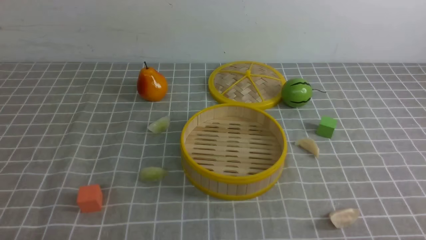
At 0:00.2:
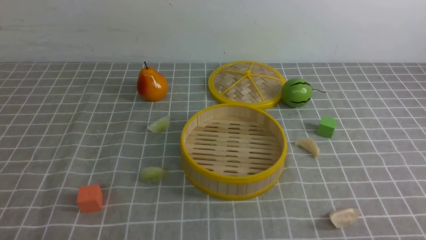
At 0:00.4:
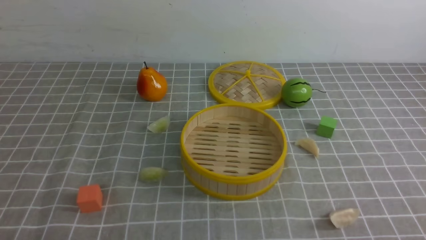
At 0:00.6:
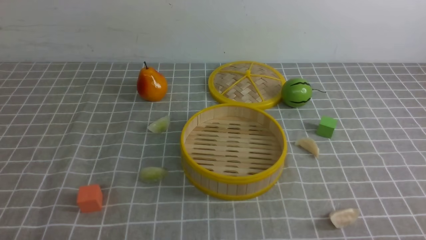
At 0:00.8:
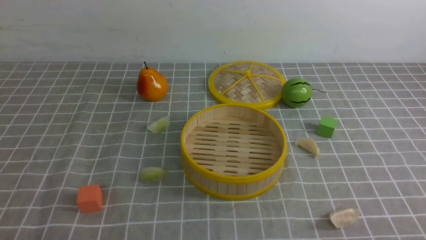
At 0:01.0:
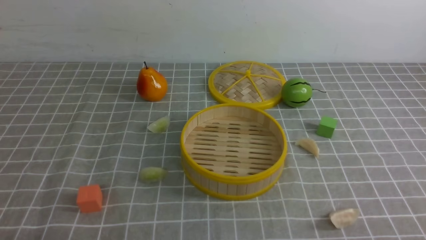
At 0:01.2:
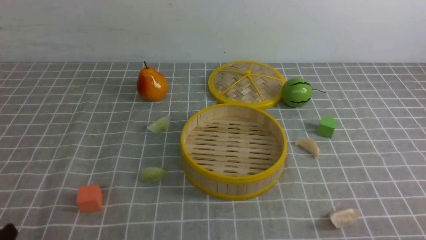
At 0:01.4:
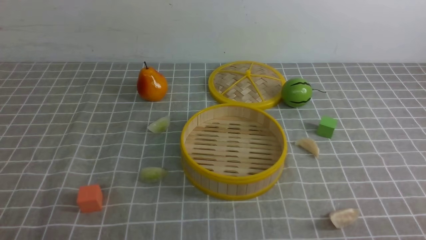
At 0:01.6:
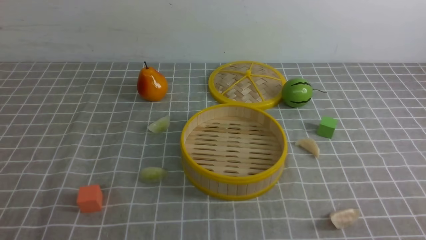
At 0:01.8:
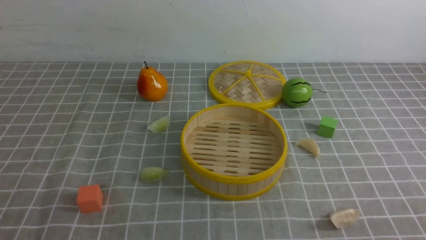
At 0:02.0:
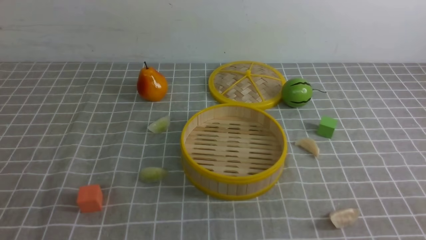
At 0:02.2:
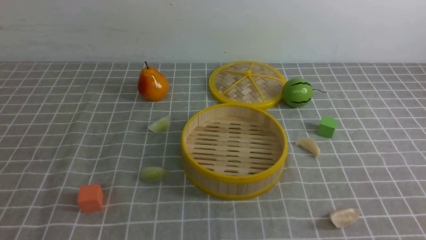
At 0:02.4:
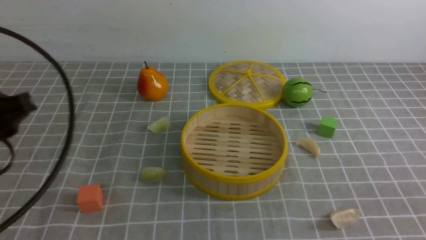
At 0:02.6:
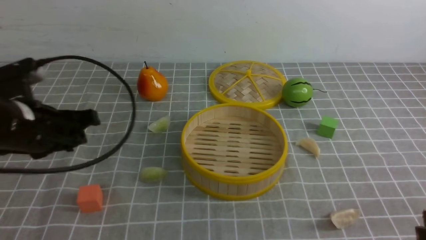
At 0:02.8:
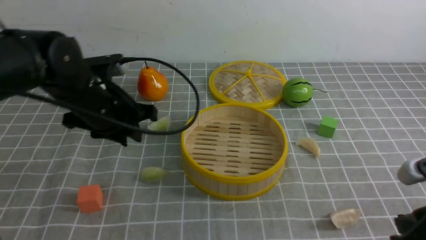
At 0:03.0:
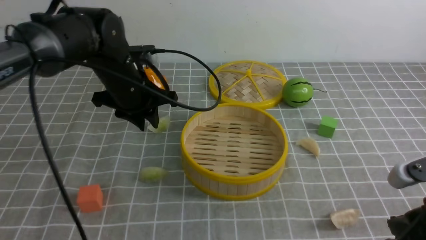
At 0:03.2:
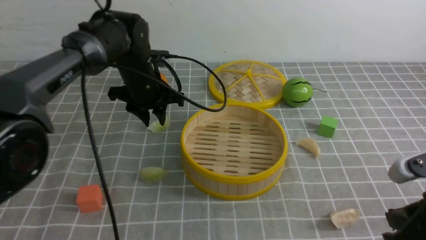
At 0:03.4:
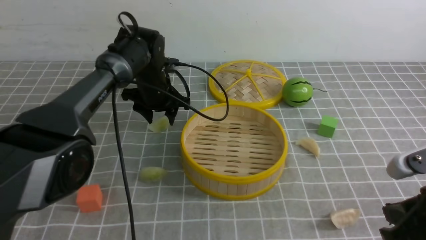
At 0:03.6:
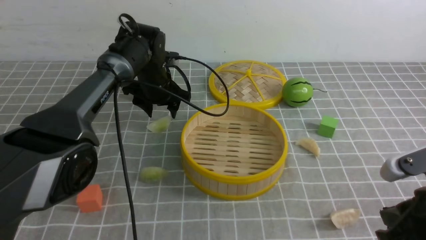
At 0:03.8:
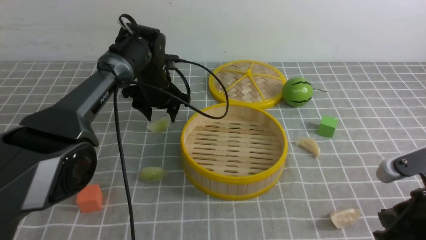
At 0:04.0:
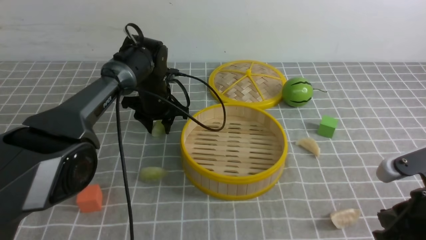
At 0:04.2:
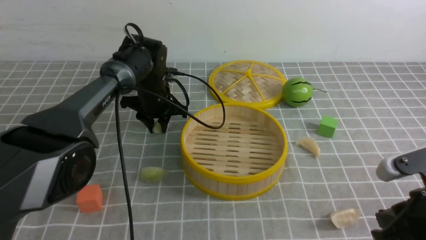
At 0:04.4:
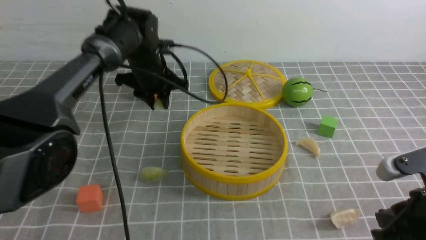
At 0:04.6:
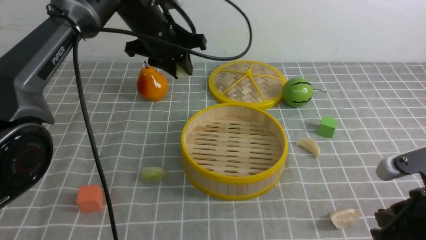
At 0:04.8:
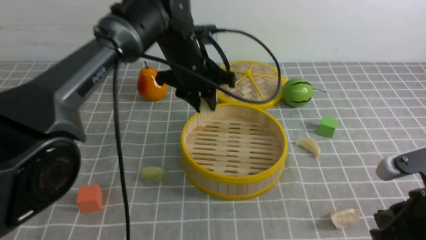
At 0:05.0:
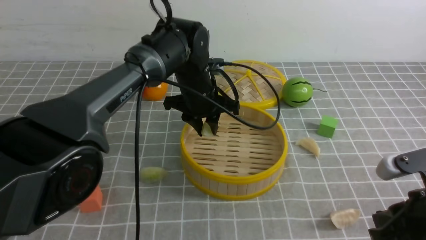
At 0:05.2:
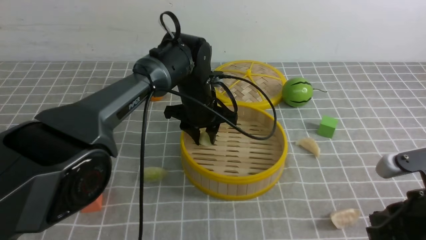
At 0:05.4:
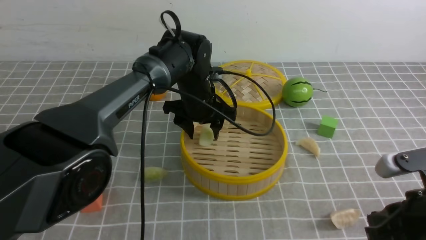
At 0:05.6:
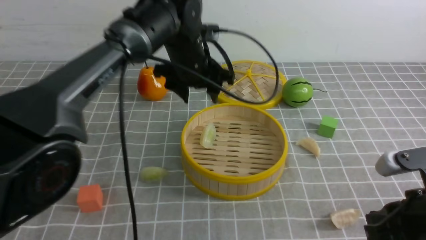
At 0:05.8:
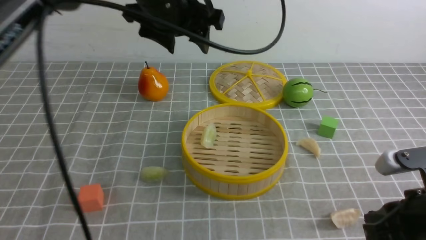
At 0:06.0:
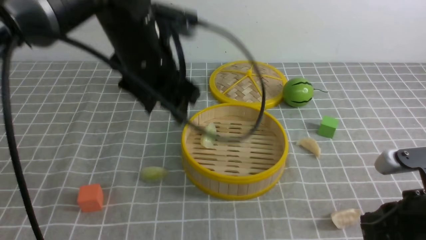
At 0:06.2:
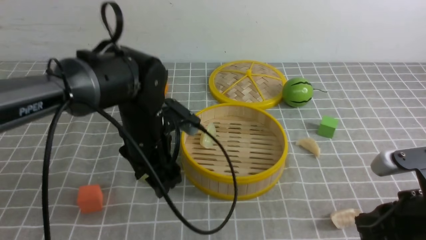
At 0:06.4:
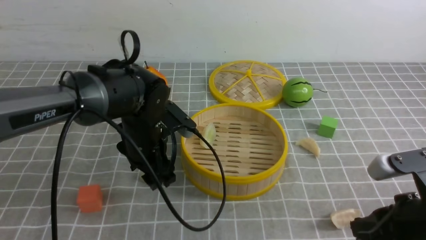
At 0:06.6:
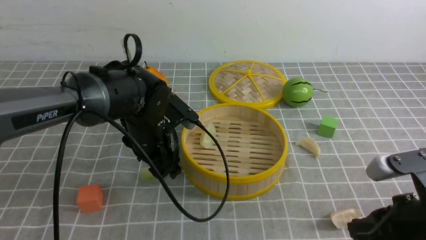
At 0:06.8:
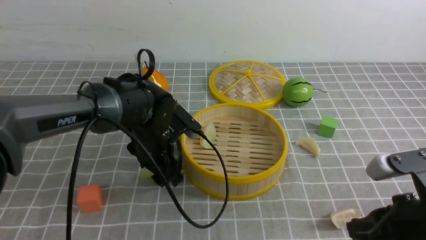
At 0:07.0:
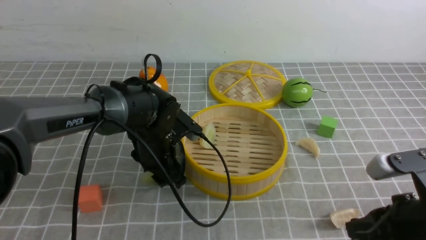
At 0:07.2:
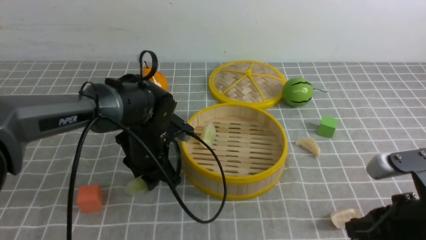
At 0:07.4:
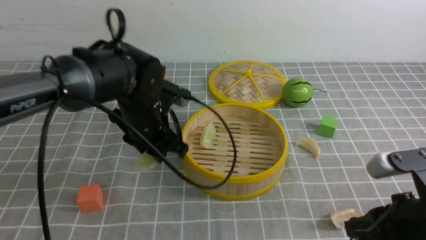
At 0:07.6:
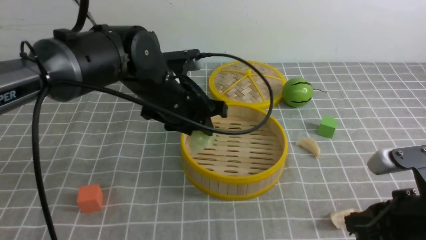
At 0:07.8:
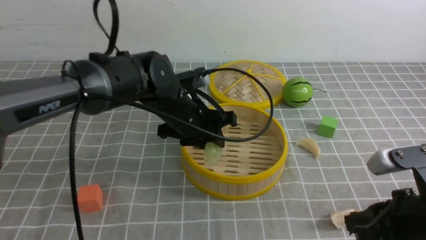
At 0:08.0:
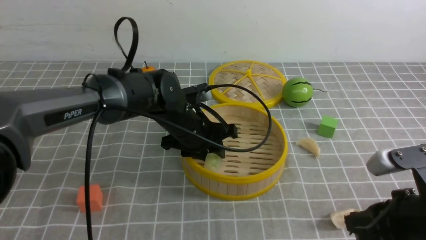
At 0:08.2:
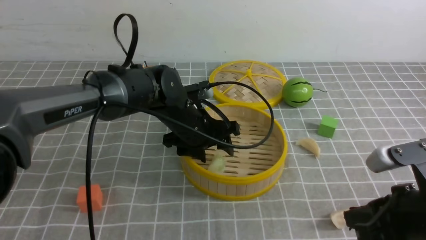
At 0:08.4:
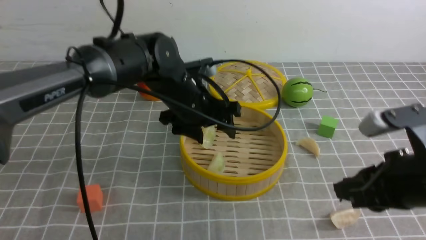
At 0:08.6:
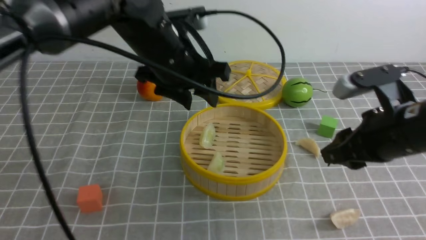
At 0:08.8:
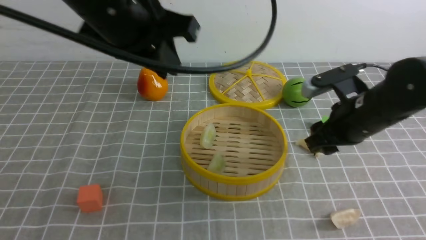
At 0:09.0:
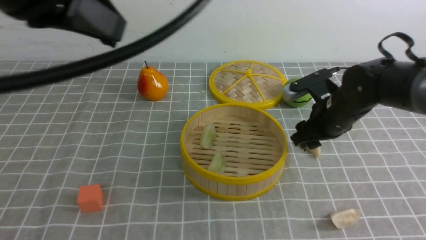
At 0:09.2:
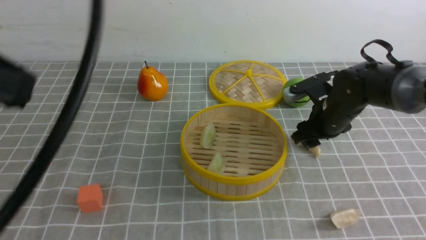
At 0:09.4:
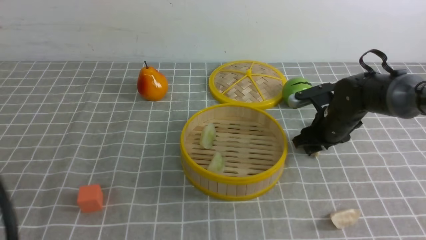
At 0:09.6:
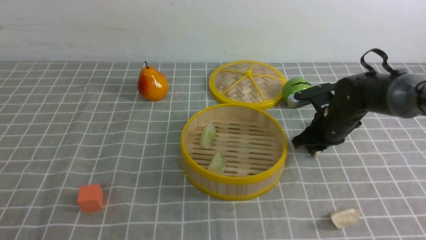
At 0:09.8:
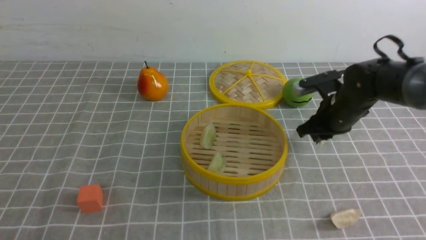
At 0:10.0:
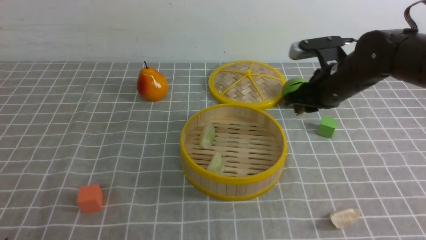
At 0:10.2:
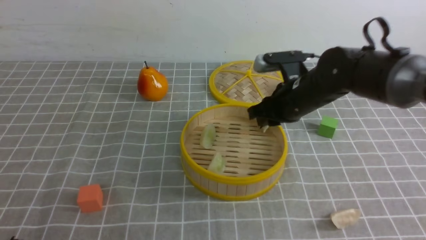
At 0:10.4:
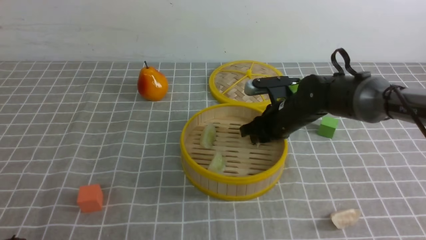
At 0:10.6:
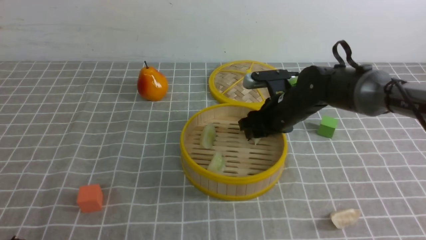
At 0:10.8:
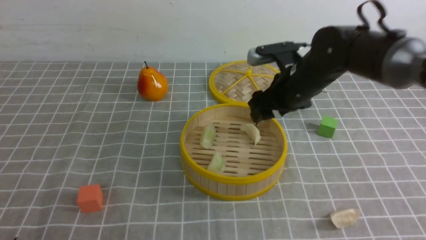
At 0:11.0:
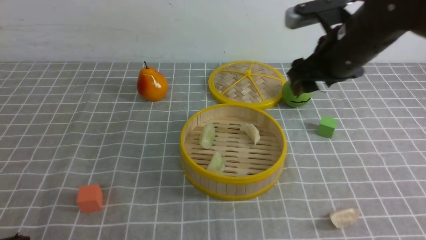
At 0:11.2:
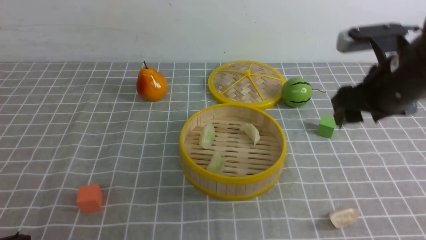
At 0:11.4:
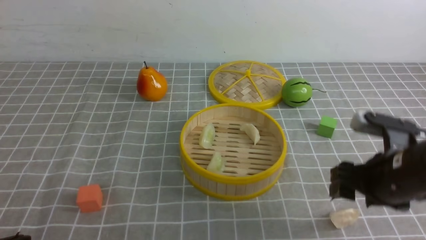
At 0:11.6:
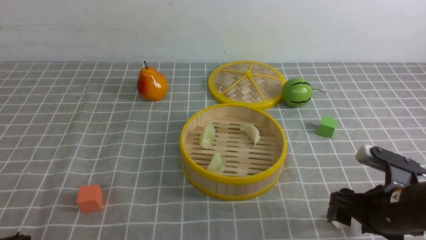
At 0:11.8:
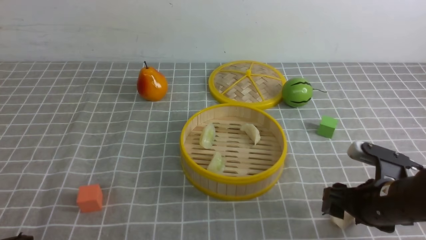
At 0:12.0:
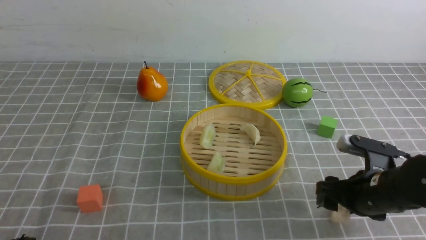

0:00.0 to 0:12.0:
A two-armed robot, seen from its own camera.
Task of the whole recording: put the dumplings into the steamer on the table with the grey tablecloth.
Step, 0:00.0 to 0:04.2: use the left arm to grab a dumpling.
Step, 0:04.4 to 0:05.4: use the left arm to put the dumpling into the steamer.
Step, 0:05.6 to 0:07.2: use the left arm to grab a dumpling.
Step, 0:07.4 to 0:08.2: use the left arm to put the dumpling into the steamer.
Step, 0:08.4 to 0:09.8: use the right arm to grab a dumpling.
Step, 0:10.2 to 0:11.0: use the right arm to put the dumpling into the steamer.
0:01.6 to 0:03.0: The right gripper is displaced forward by roughly 10 cm; the left gripper is displaced forward by roughly 40 cm.
0:03.0 to 0:04.4: The left gripper travels forward by approximately 5 cm, and opens, then closes once more.
0:04.4 to 0:06.0: The left gripper swings up and down, some 15 cm each way, with 2 reversals, and opens.
0:06.0 to 0:07.6: The left gripper moves downward, some 5 cm, and closes.
0:07.6 to 0:09.0: The right gripper shifts some 20 cm forward, and opens. Meanwhile the left gripper shifts approximately 30 cm upward, backward and to the left, and closes its fingers.
0:09.0 to 0:10.4: The left gripper travels downward and backward by about 25 cm. Meanwhile the right gripper goes some 5 cm to the left.
0:10.4 to 0:12.0: The right gripper is displaced backward and to the right by approximately 20 cm, and opens.

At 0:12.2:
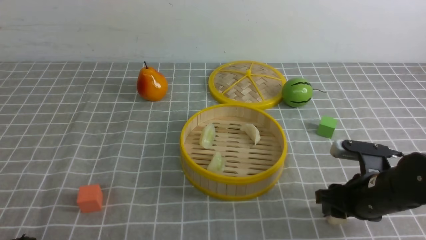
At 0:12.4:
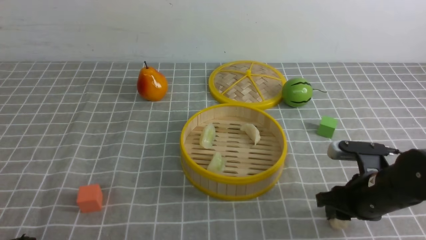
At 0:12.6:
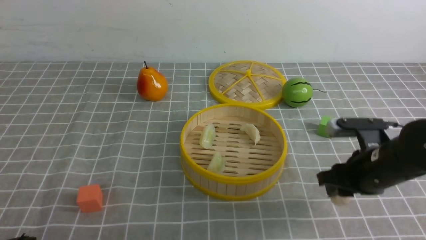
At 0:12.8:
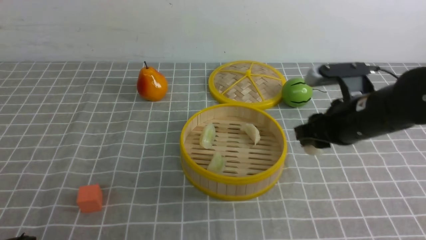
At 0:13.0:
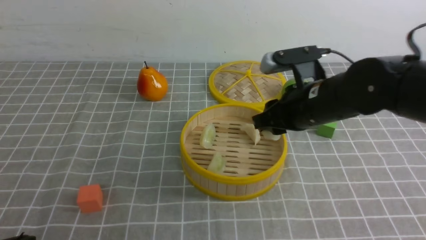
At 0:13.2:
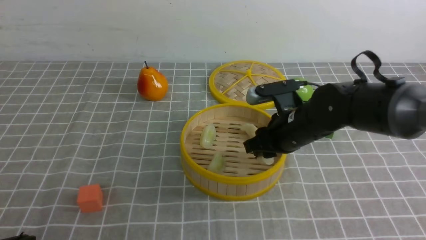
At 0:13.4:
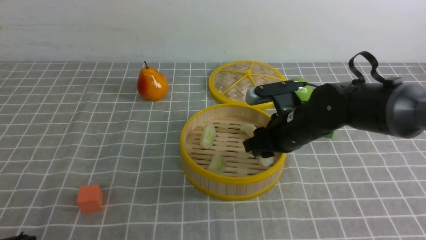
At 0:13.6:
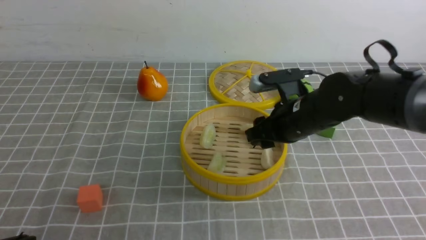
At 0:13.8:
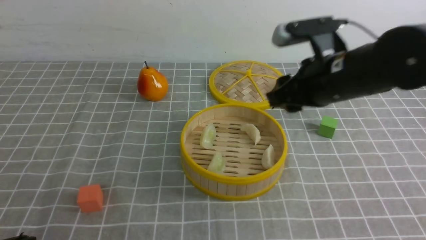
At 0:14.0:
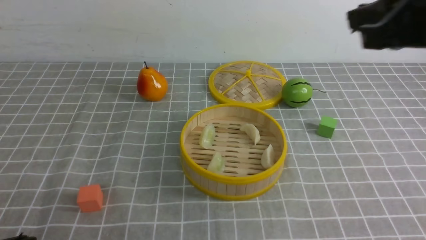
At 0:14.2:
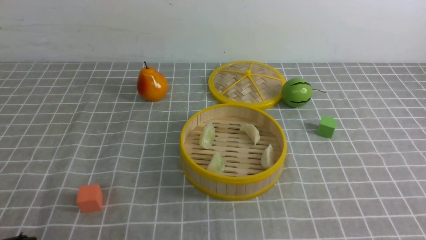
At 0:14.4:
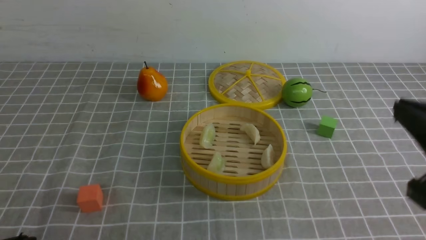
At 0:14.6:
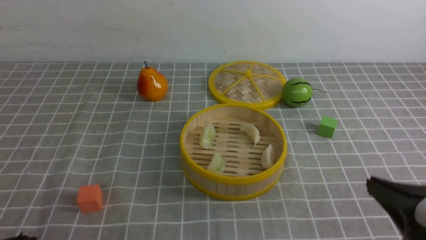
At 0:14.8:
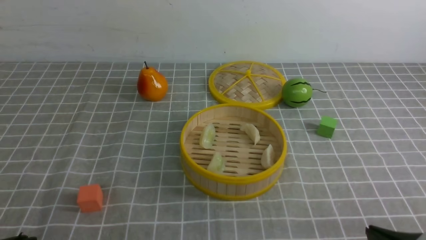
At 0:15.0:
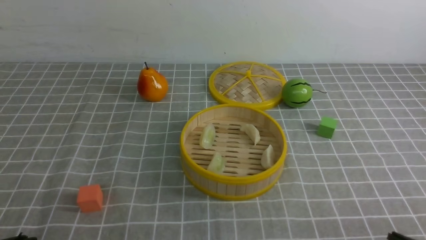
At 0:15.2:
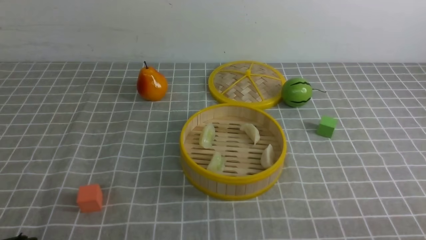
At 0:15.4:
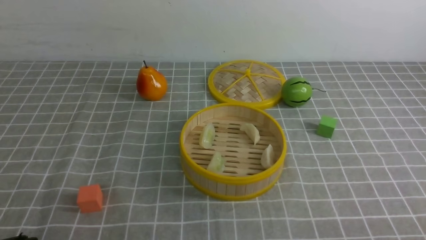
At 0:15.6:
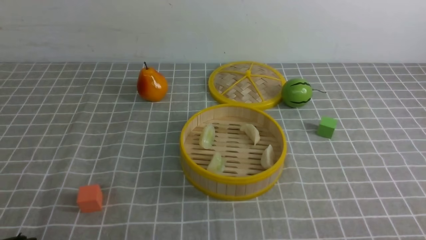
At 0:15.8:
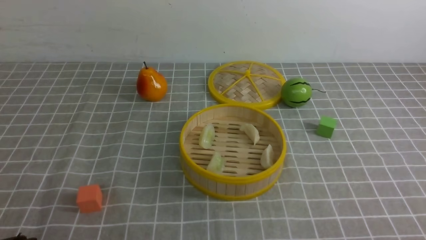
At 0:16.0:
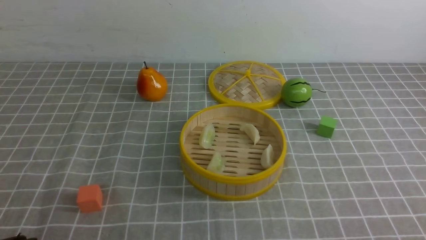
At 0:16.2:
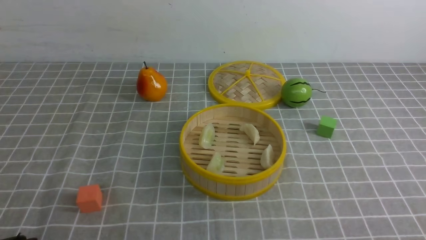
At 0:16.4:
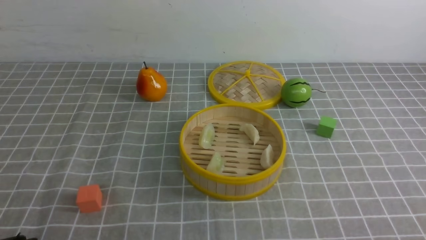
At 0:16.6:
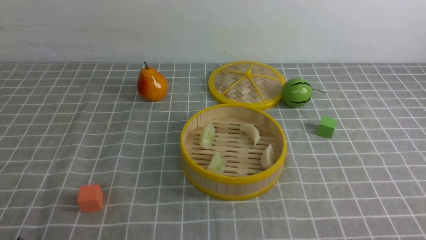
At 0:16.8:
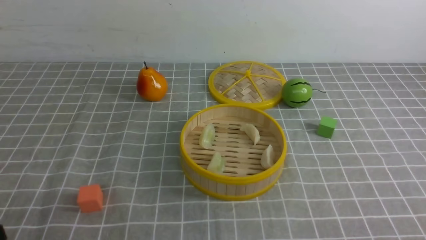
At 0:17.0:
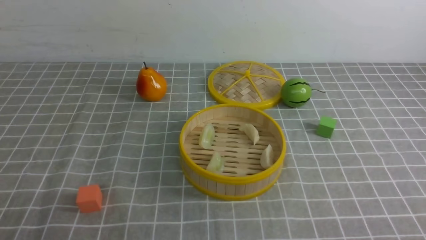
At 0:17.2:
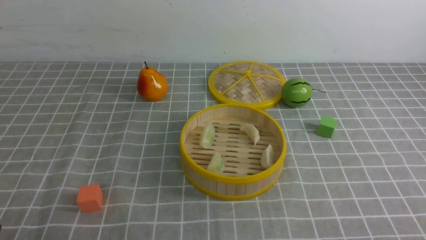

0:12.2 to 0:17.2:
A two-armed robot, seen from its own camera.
Task of the whole recording: put the dumplings into the steamer on the table with the grey tablecloth.
Step, 0:12.8 to 0:13.8: use the right arm to put the dumpling into the steamer.
0:12.2 to 0:13.8: The right gripper heads upward, covering roughly 20 cm.
0:13.8 to 0:15.6: The right gripper goes roughly 35 cm backward, downward and to the right, and closes its fingers.
